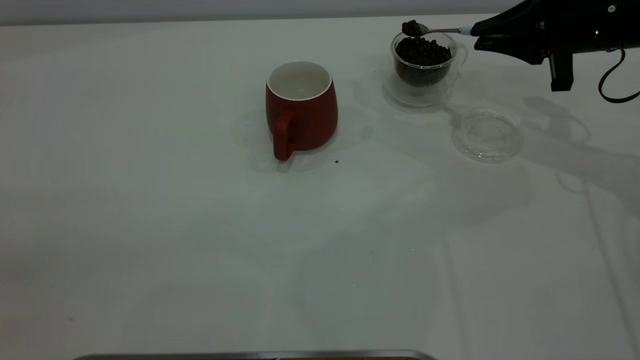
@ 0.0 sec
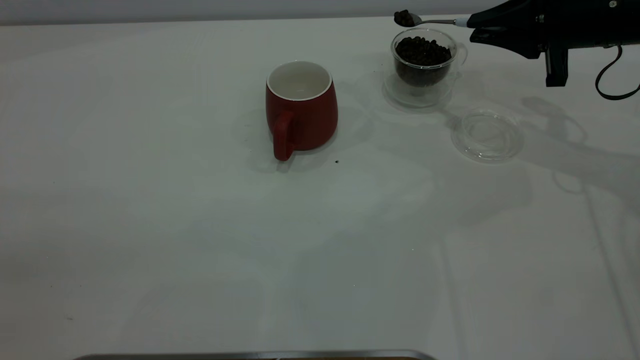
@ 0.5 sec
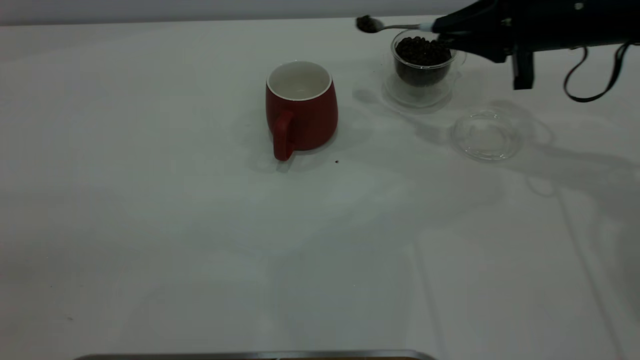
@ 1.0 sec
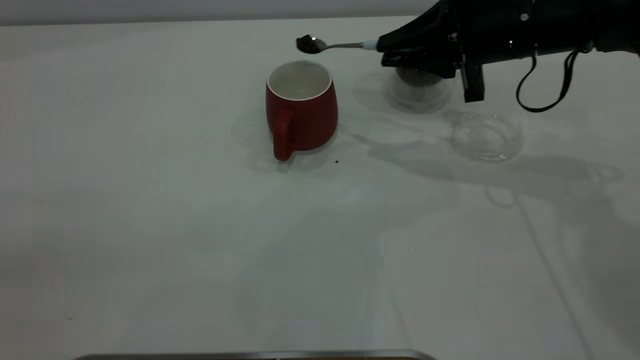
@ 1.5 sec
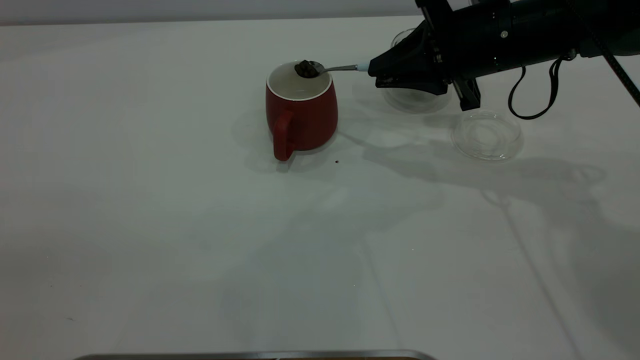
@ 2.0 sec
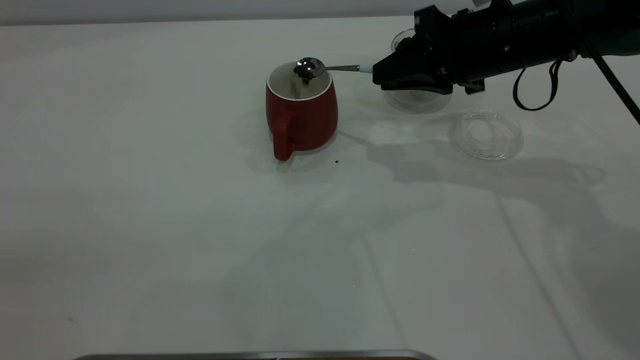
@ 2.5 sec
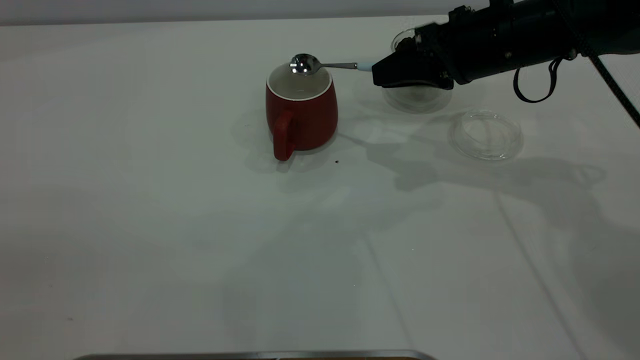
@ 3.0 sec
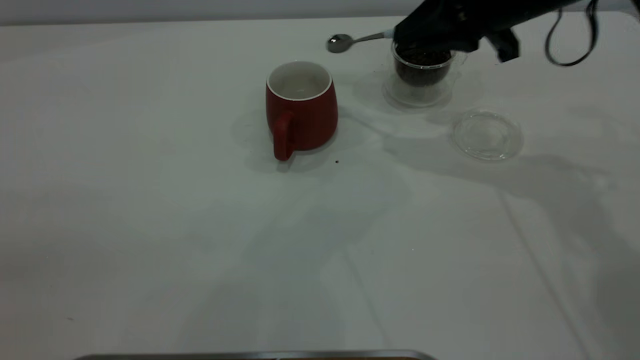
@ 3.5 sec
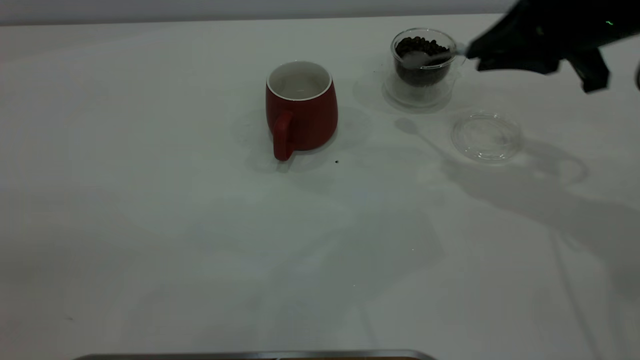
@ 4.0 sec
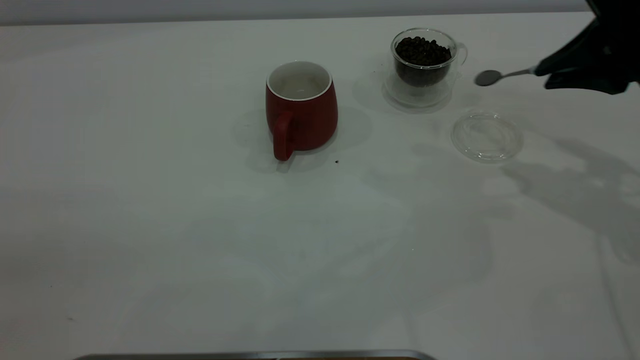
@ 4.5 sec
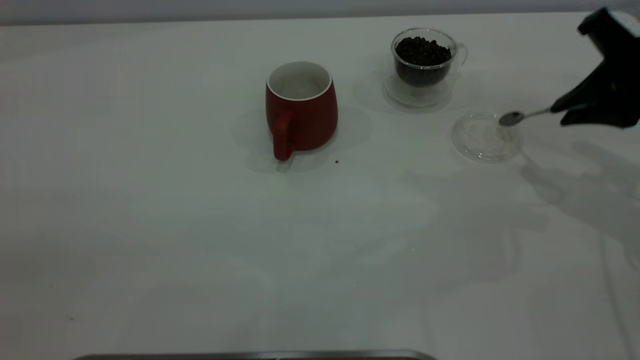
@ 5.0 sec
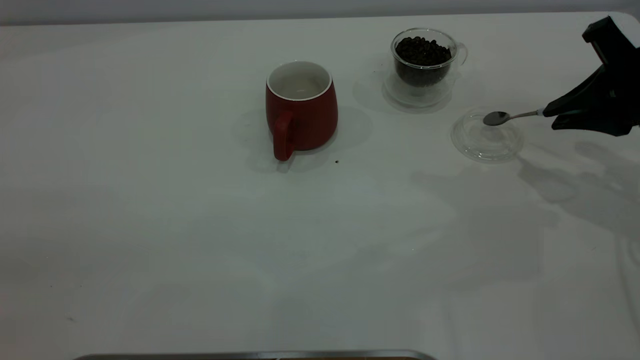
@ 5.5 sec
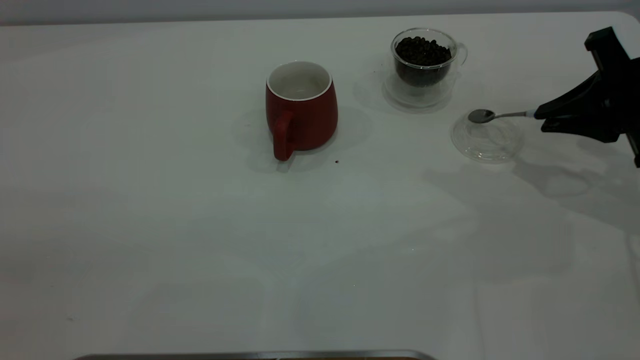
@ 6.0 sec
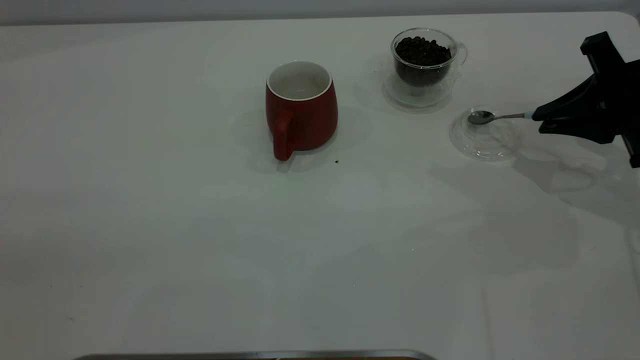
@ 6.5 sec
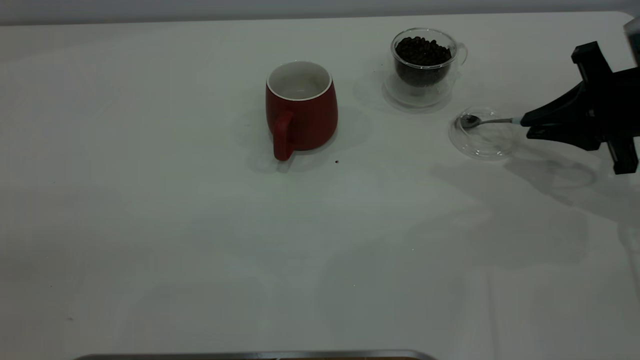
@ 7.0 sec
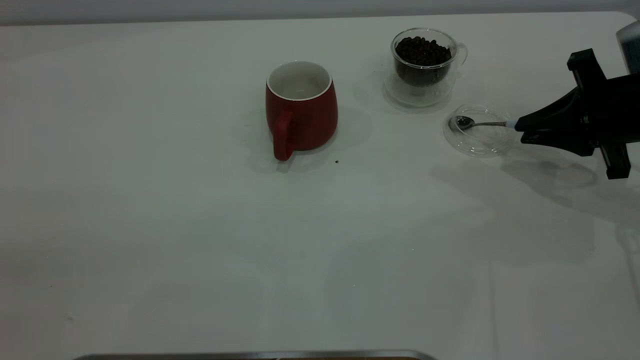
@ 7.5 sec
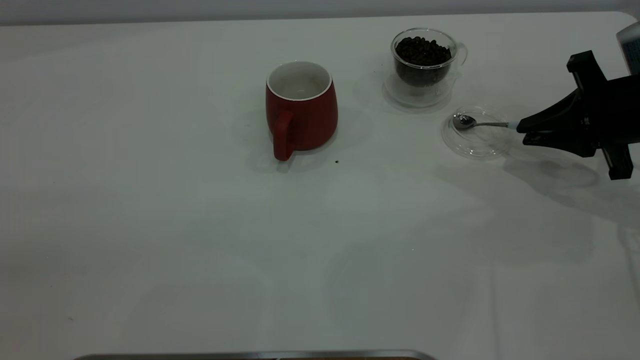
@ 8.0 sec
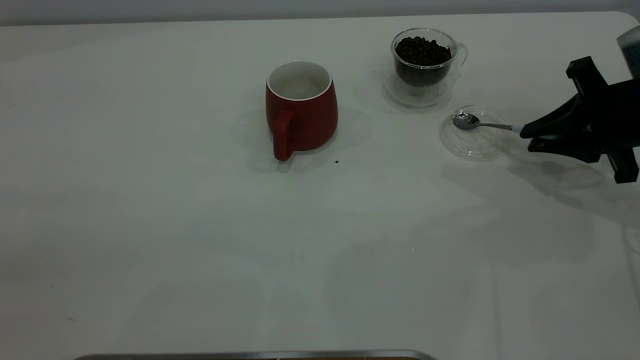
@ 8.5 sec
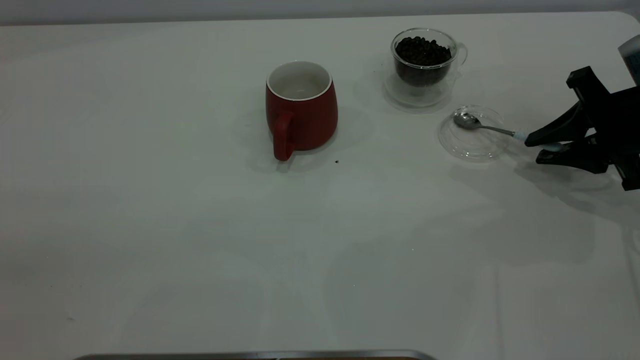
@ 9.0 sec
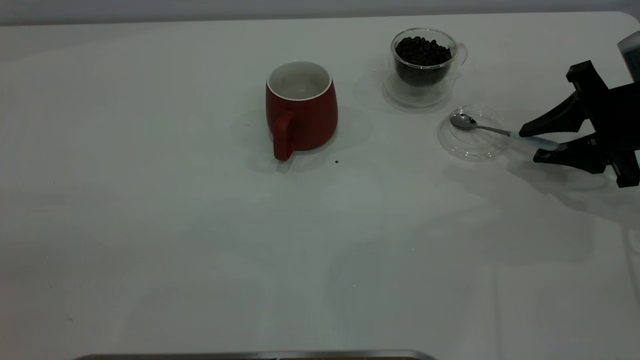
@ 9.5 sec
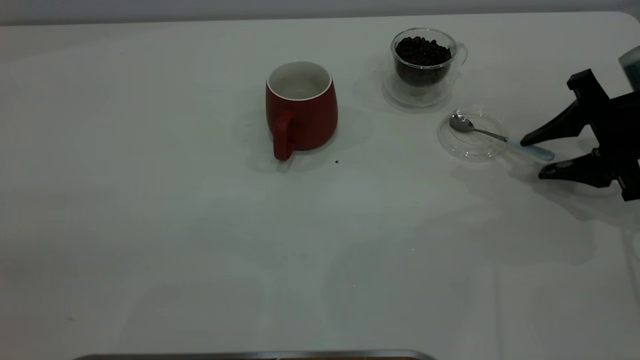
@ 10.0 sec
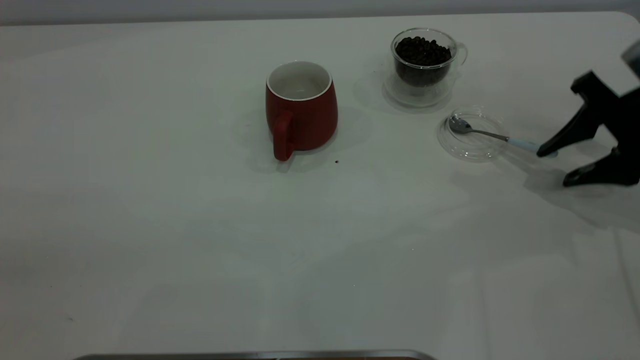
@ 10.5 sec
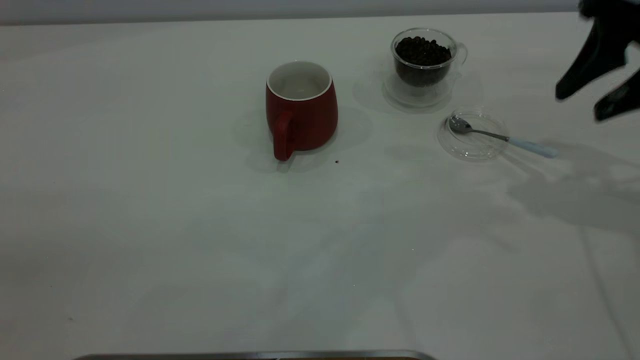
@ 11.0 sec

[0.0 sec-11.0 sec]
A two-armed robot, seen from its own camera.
Task of the whole recording: the left gripper place the red cup in the center of the table, the right gripper take the blue spoon from the cup lid and scoop out the coffee beans from the coffee cup and put them into the red cup, the right gripper put the spoon back into the cup lid.
Step, 0.0 sec to 3.0 sec: Scoop a spoonful of beans into the cup.
Step, 3.5 sec to 10.5 sec: Place the spoon back in its original place.
0.0 sec to 2.0 sec: The right gripper moves to the left, approximately 10 cm.
2.0 sec to 3.5 sec: The right gripper moves upward, approximately 5 cm.
3.5 sec to 5.5 sec: The right gripper moves to the right, backward and downward, some 15 cm.
5.5 sec to 7.5 sec: The right gripper heads downward, covering roughly 5 cm.
7.5 sec to 9.0 sec: The right gripper opens.
9.0 sec to 11.0 sec: The right gripper travels upward by about 15 cm, and opens its fingers.
